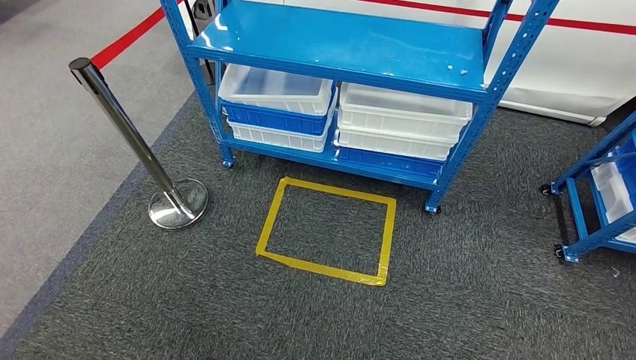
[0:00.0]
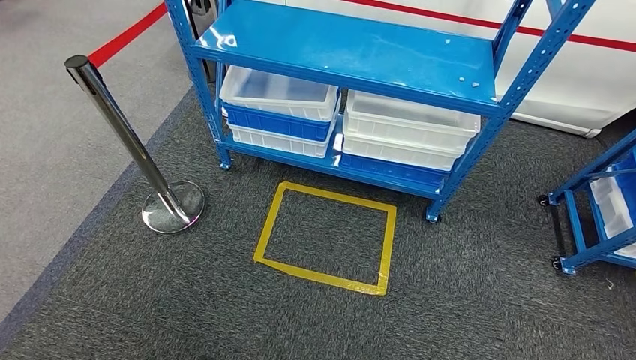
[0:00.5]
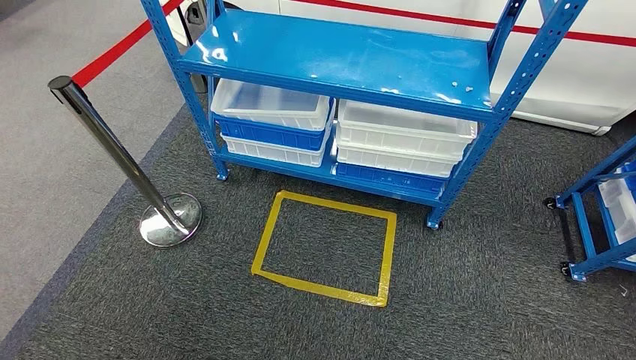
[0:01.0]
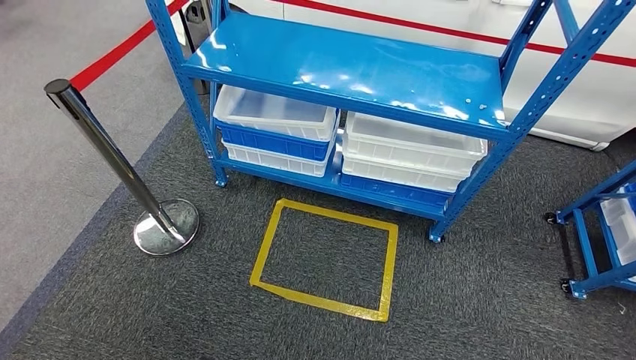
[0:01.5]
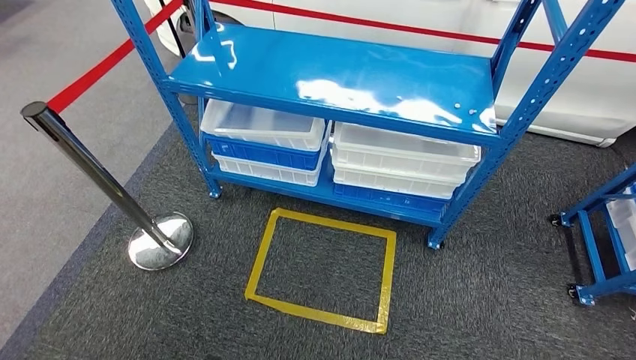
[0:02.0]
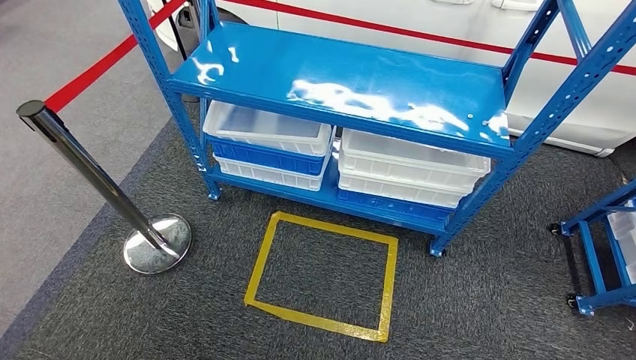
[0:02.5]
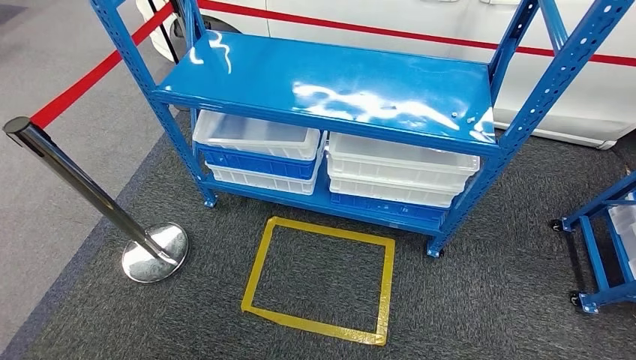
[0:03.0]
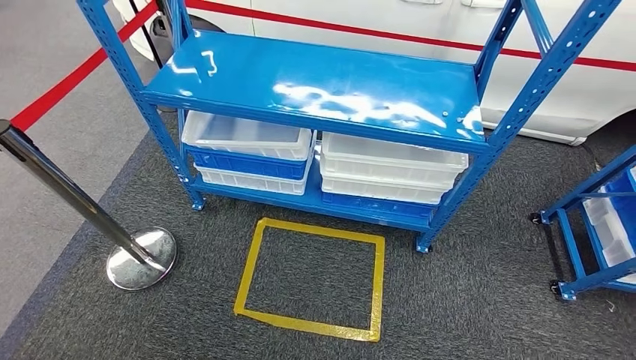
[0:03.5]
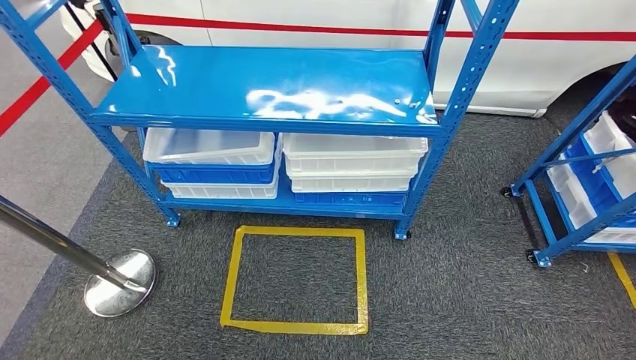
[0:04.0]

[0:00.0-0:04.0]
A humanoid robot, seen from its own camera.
Step, 0:00.0 to 0:04.0: Move to the initial position of the shelf.
